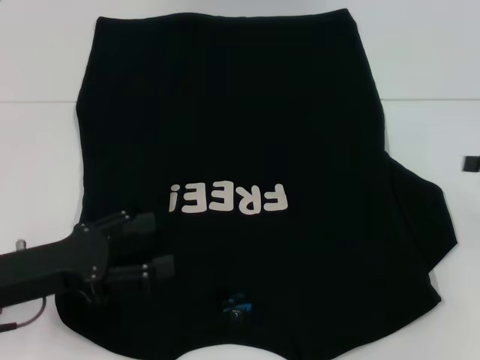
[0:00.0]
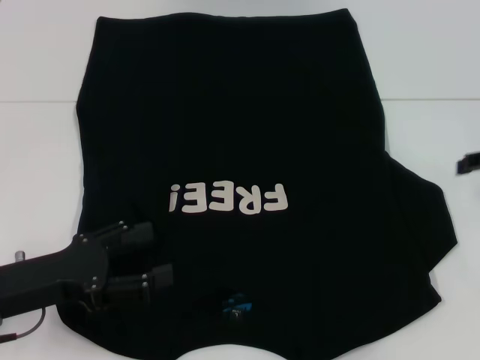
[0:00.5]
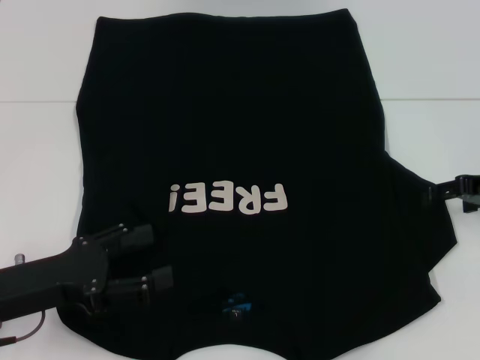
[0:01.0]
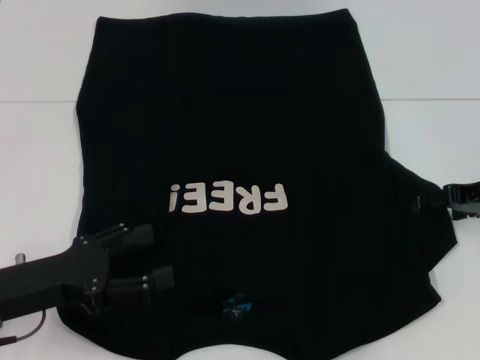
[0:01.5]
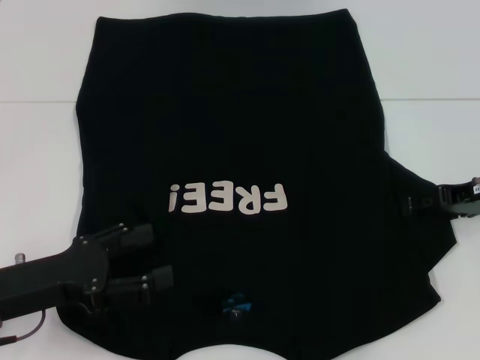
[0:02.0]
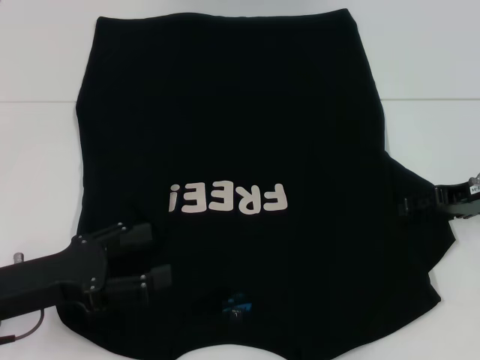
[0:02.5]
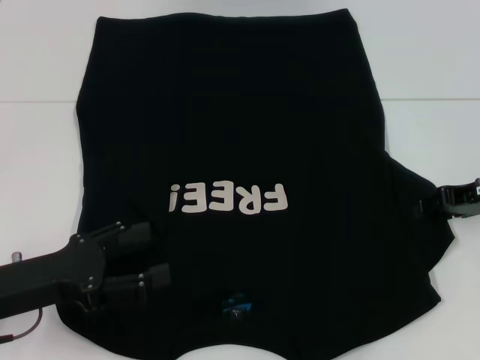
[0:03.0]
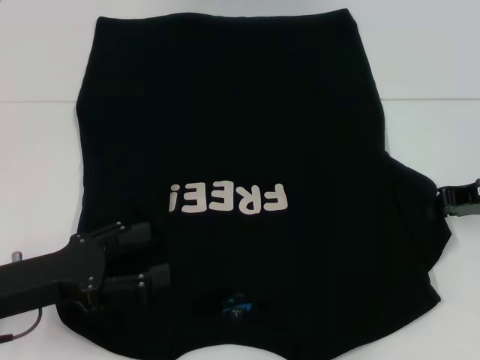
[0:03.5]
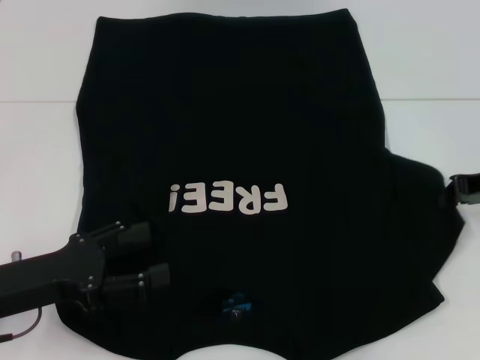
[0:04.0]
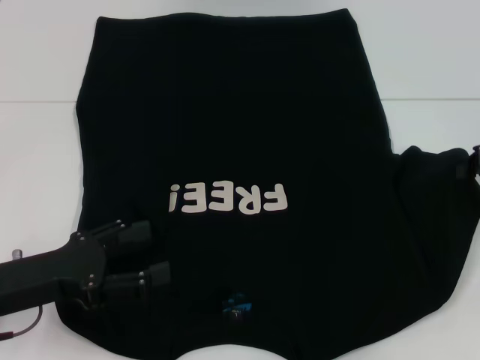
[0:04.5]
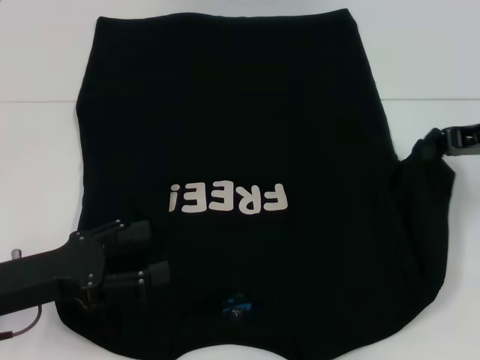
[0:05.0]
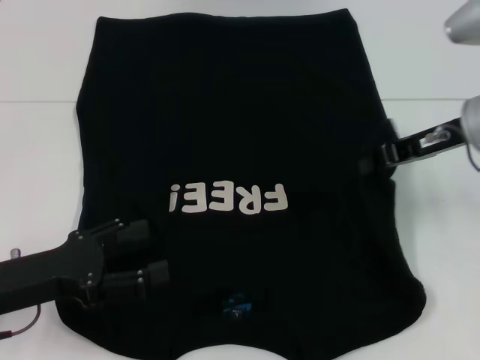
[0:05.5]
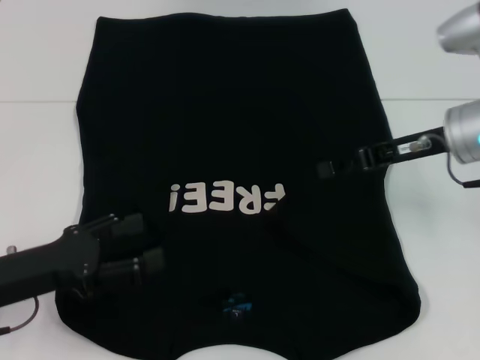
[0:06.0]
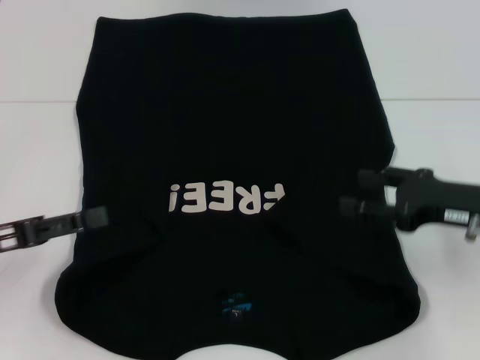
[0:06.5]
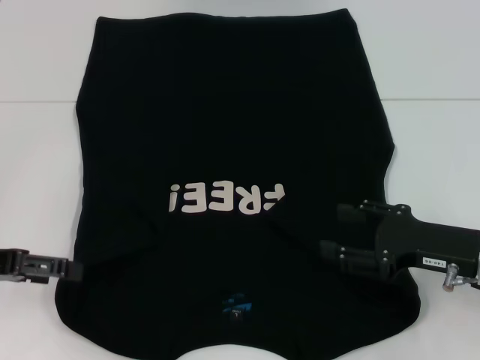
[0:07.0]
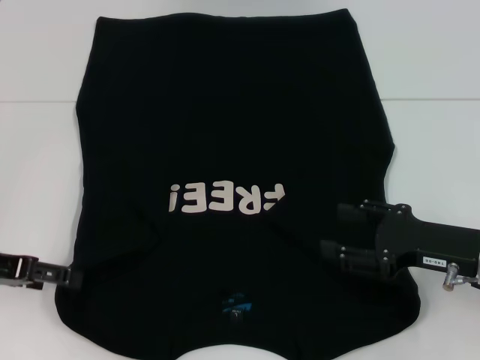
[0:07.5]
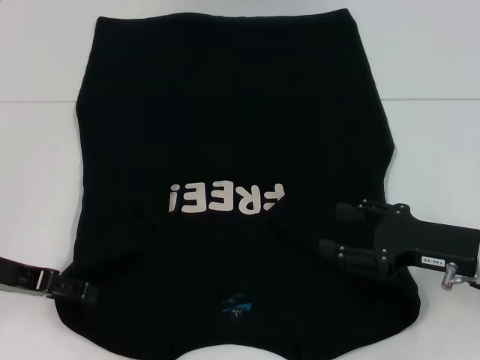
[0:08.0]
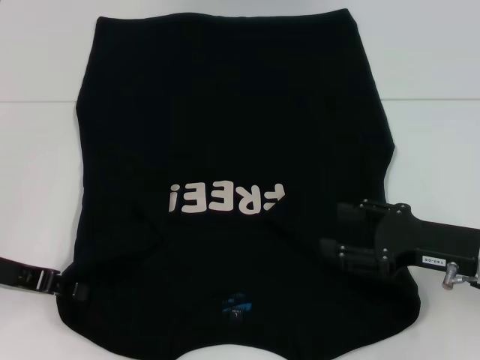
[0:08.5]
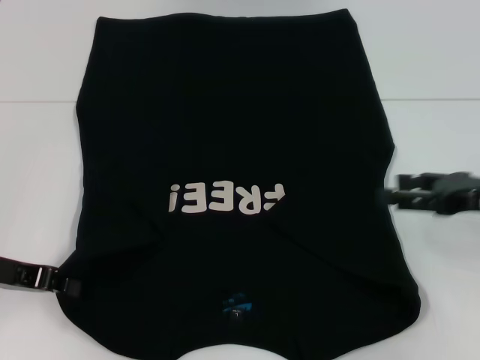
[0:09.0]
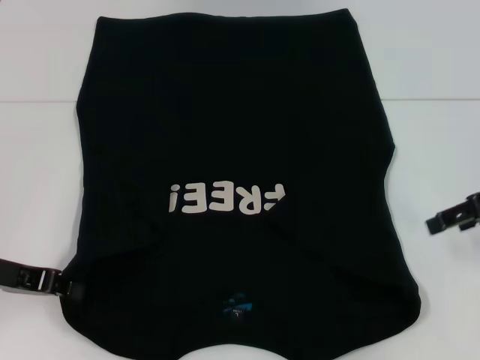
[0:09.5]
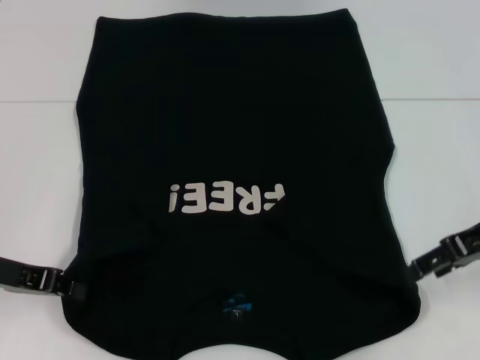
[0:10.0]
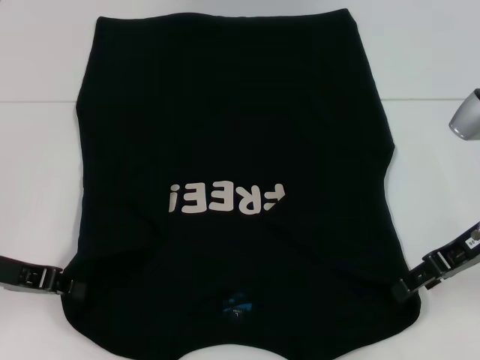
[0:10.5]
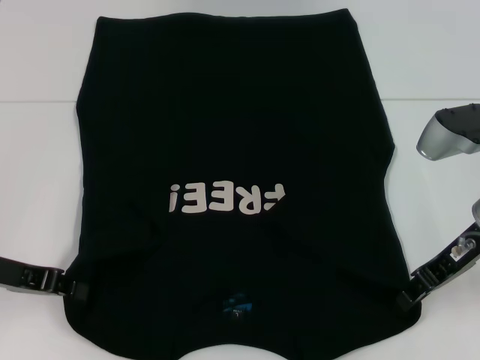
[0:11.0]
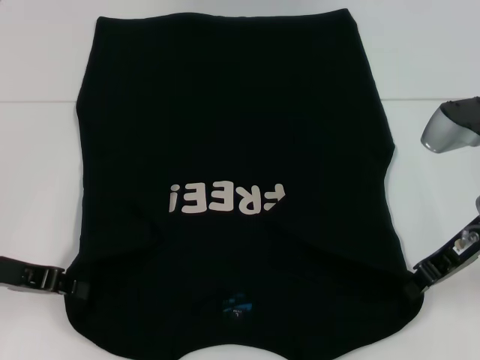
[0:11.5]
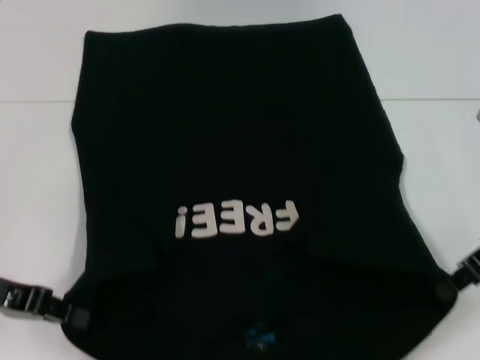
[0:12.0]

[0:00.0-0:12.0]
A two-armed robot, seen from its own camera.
Step, 0:00.0 to 0:06.0: Fold the bottom right sleeve with your right hand.
Step, 0:06.5 to 0:09.0: Grab the bottom left corner with your left hand.
Step, 0:09.5 to 0:11.5: Grab the bottom right corner with your right hand.
0:00.0 to 0:02.0: The right gripper travels to the left and forward by some 10 cm.
0:02.0 to 0:04.0: The right gripper closes.
0:04.0 to 0:06.0: The right gripper travels to the left by about 10 cm.
0:06.0 to 0:08.0: The right gripper moves backward and downward, some 15 cm, and opens. The left gripper heads forward, covering roughly 5 cm.
0:08.0 to 0:10.0: The right gripper heads upward and forward, covering about 10 cm. Meanwhile the left gripper closes up.
0:10.0 to 0:12.0: The right gripper closes up.

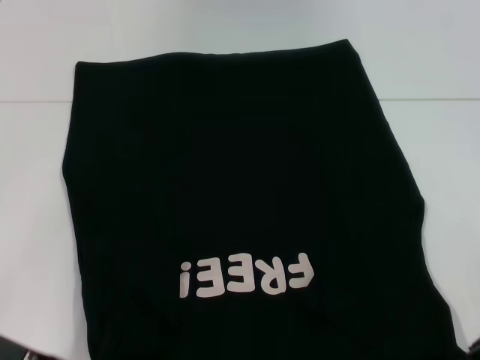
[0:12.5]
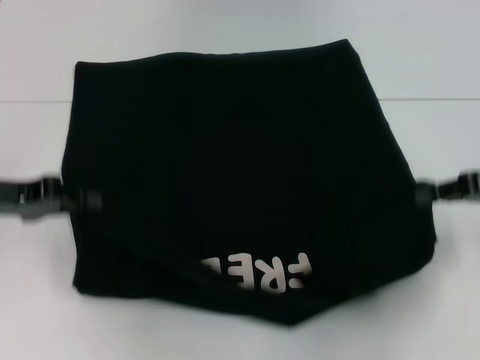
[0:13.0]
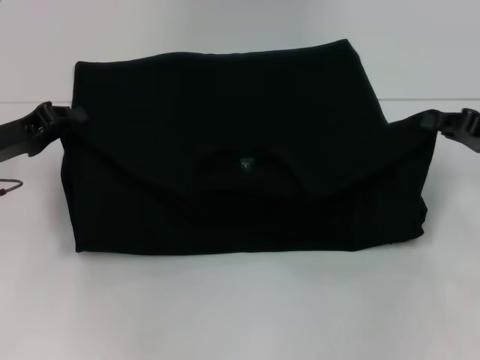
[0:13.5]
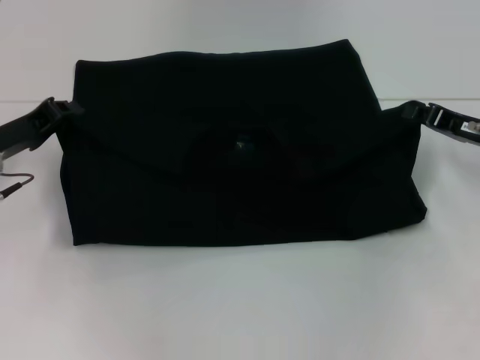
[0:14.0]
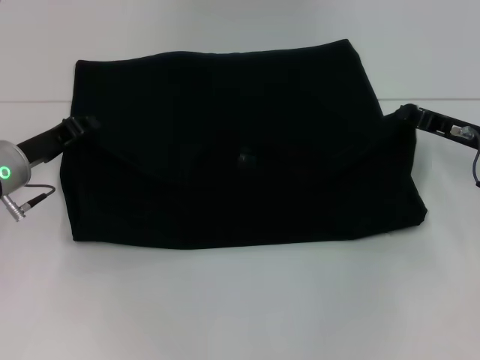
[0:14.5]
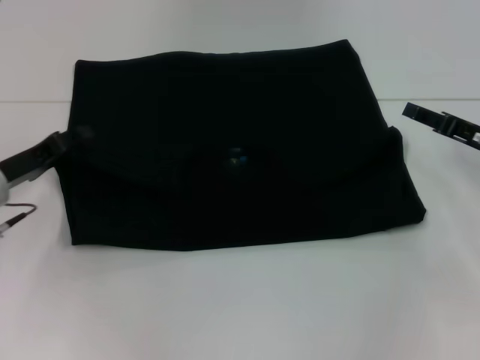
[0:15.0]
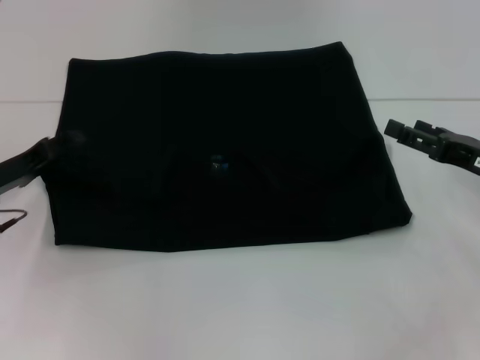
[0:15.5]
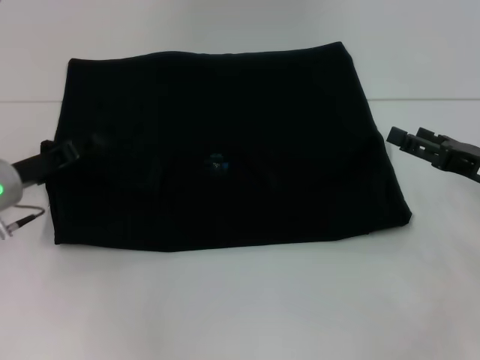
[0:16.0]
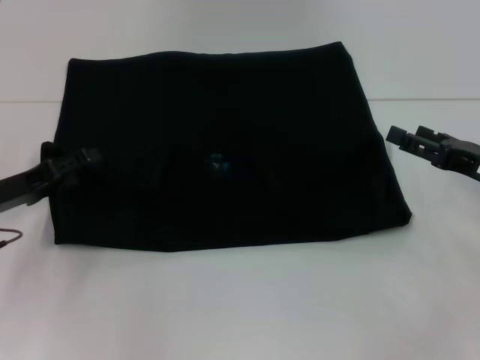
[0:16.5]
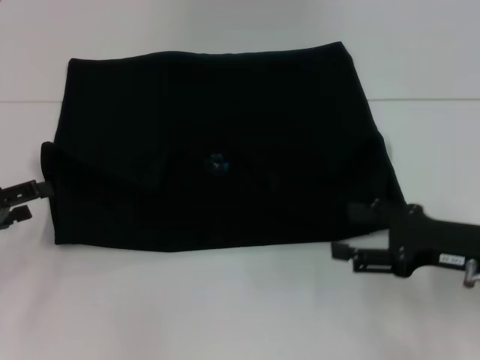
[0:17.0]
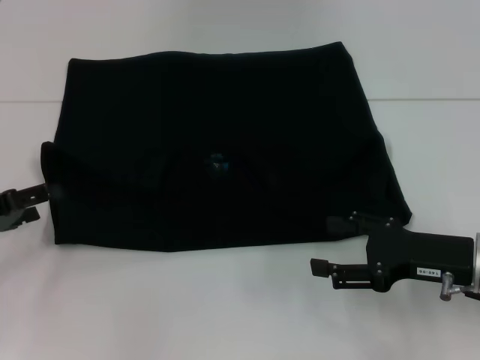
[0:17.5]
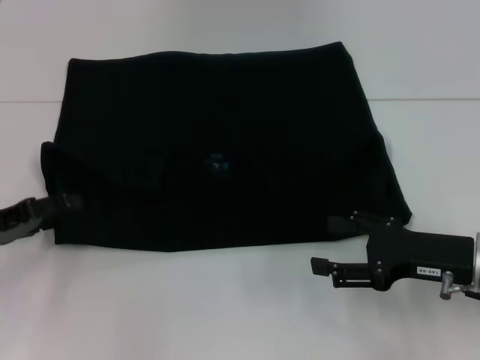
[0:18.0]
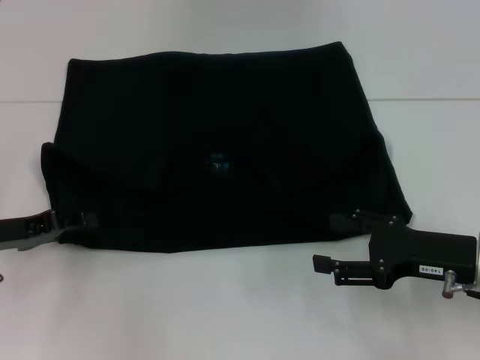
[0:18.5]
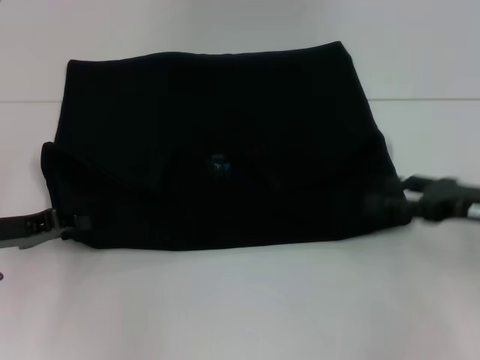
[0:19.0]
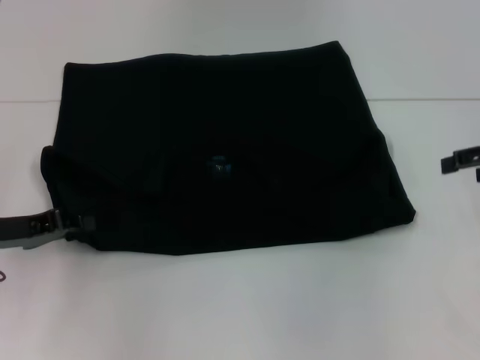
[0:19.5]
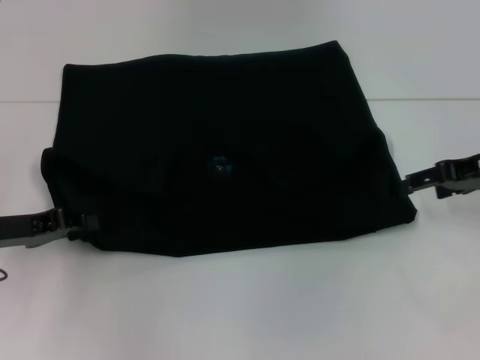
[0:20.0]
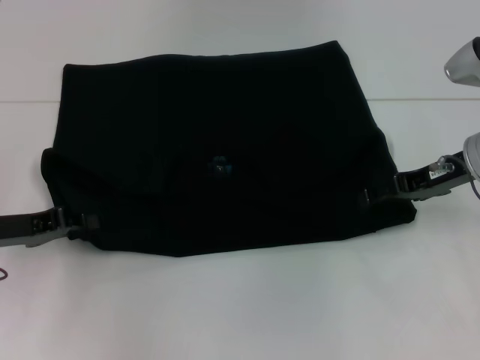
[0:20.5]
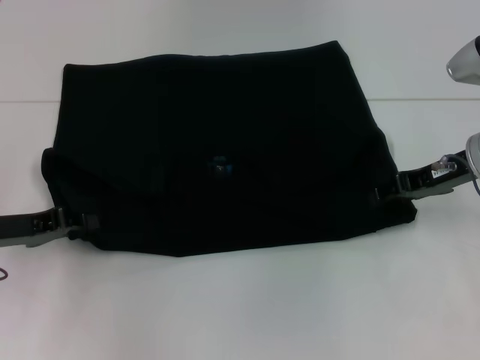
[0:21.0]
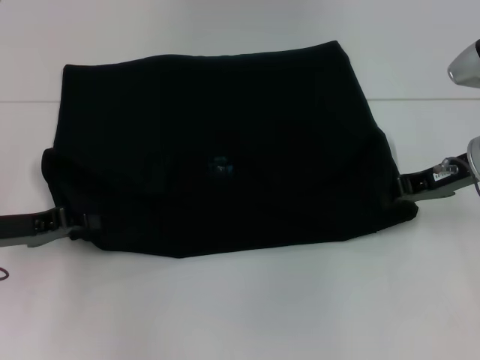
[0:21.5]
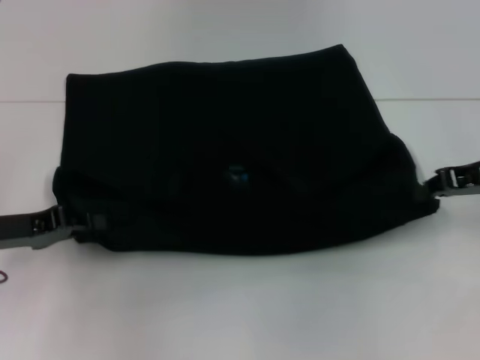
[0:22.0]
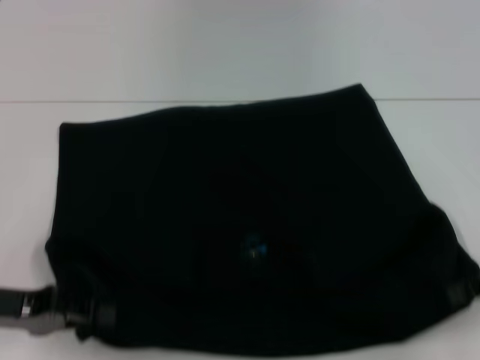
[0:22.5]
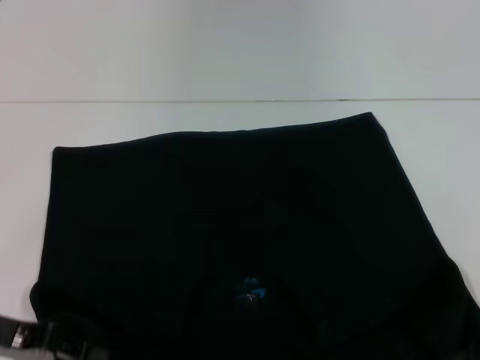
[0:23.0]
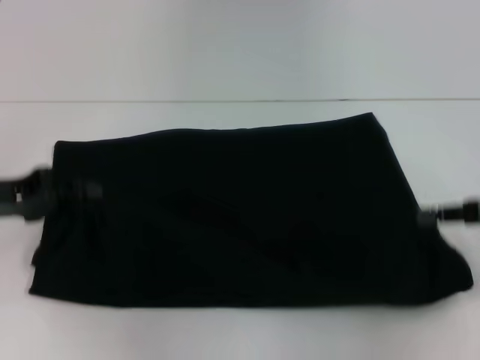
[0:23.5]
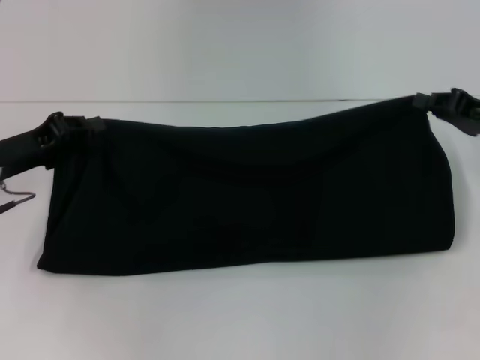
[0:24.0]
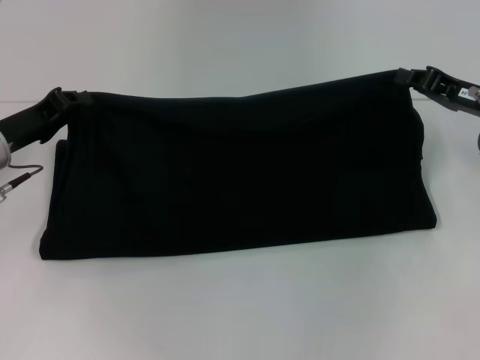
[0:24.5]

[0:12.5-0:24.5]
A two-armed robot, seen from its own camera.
Step, 0:12.5 to 0:15.0: Fold the clothes with your left hand.
Step, 0:12.5 to 0:15.0: Fold the clothes with your right hand.
Step, 0:15.5 to 0:22.5: Pull the clothes with your left hand.
Step, 0:15.5 to 0:22.5: Pull the clothes with your right hand.
0:12.5 to 0:14.5: The grippers both shift forward by about 10 cm.
0:14.5 to 0:16.5: The left gripper ends up some 5 cm from where it was, and opens its fingers. The right gripper is displaced backward by about 5 cm, and opens.
0:16.5 to 0:18.5: The right gripper goes some 5 cm to the left.
0:18.5 to 0:20.5: The left gripper closes up. Meanwhile the right gripper travels forward and upward by about 15 cm.
0:20.5 to 0:22.5: The left gripper heads backward, covering roughly 5 cm. Meanwhile the right gripper shifts some 15 cm backward and to the right, and closes.
0:22.5 to 0:24.5: The right gripper is displaced forward and to the left by about 10 cm. The left gripper shifts roughly 10 cm forward.

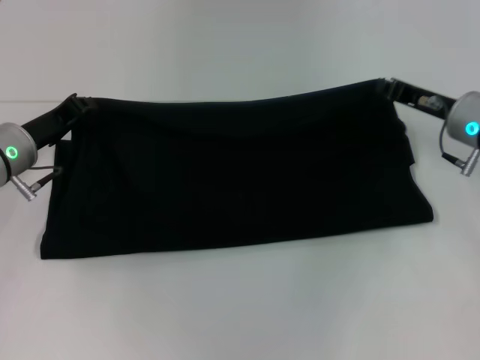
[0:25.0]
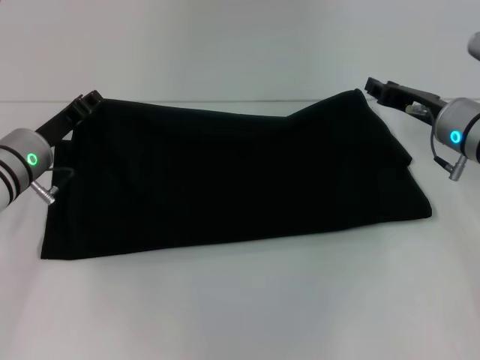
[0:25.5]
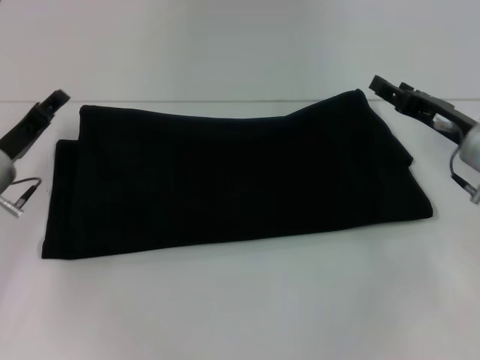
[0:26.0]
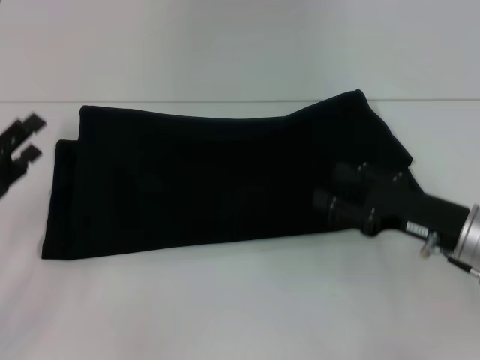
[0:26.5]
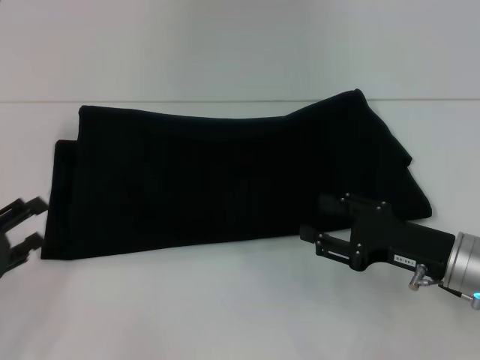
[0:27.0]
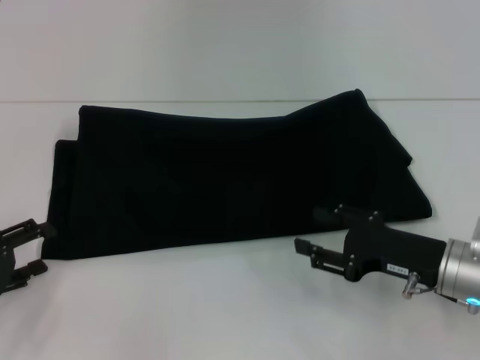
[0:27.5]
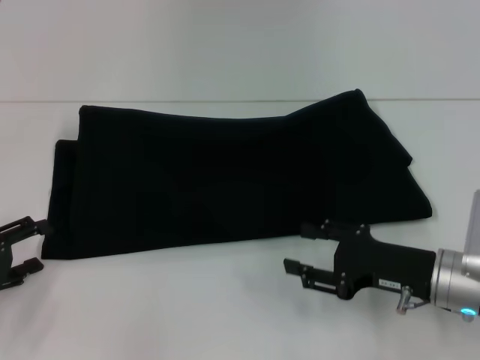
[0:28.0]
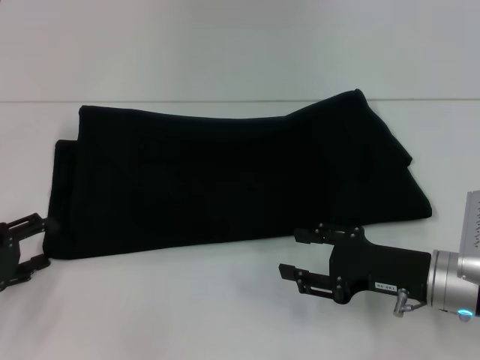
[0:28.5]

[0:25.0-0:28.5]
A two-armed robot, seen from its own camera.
0:25.0 to 0:27.0: The right gripper goes roughly 15 cm backward and downward, and opens up. Meanwhile the left gripper is displaced backward and to the left by roughly 20 cm, and opens its fingers.
0:27.0 to 0:28.5: There are only small adjustments of the grippers.
